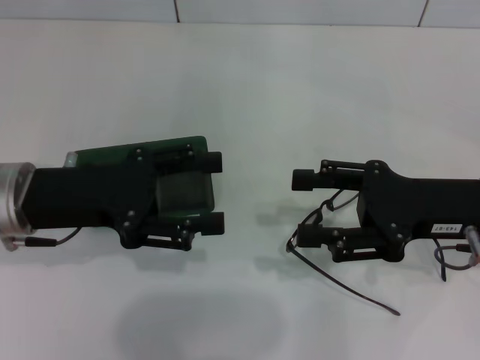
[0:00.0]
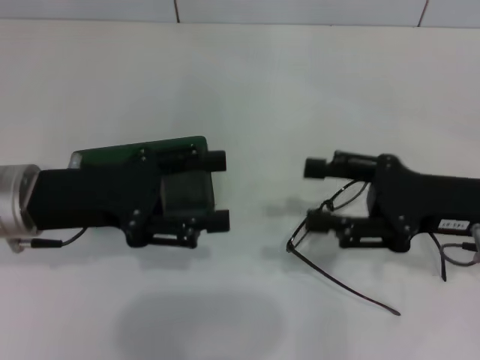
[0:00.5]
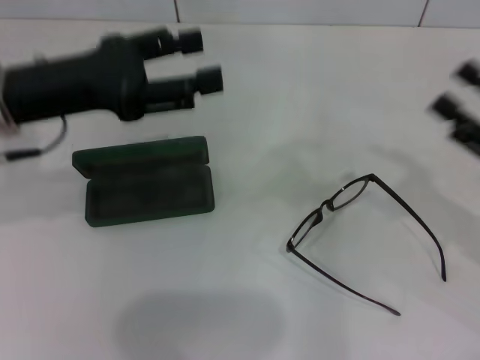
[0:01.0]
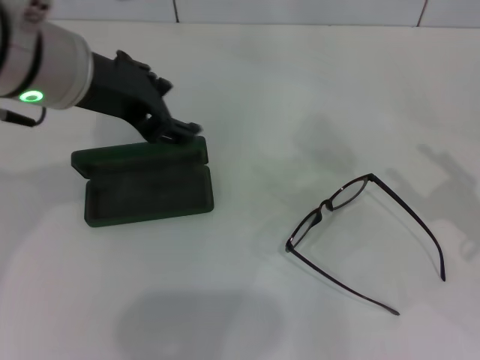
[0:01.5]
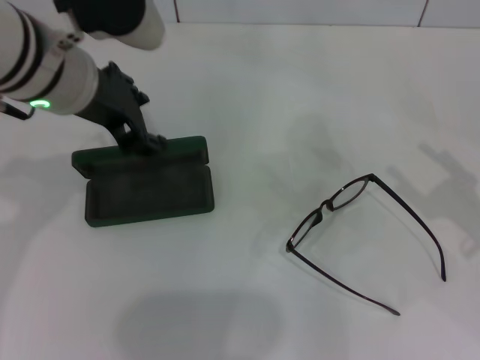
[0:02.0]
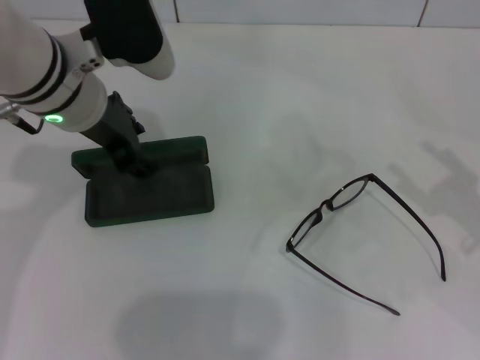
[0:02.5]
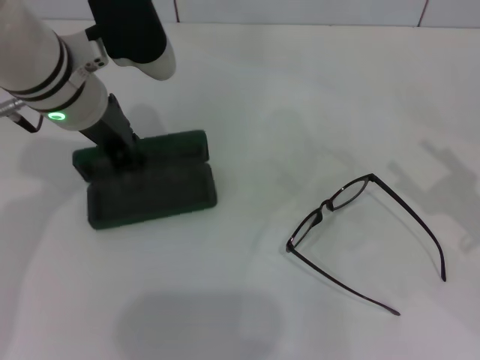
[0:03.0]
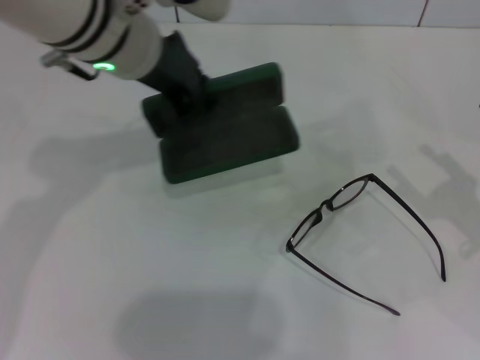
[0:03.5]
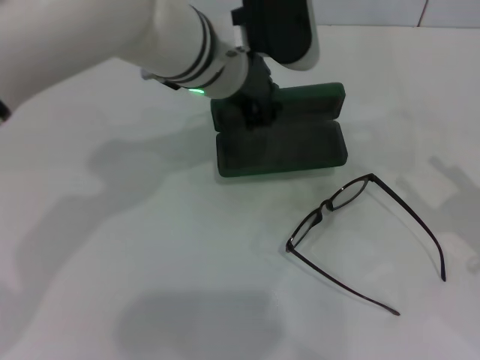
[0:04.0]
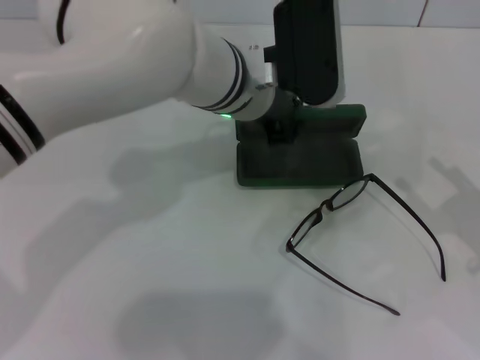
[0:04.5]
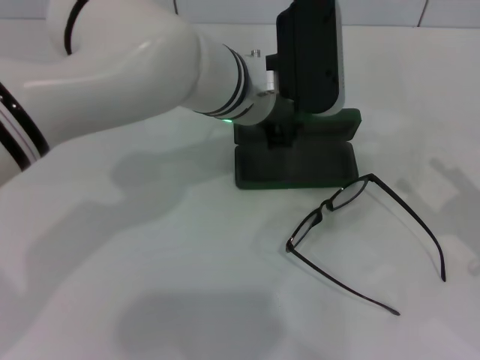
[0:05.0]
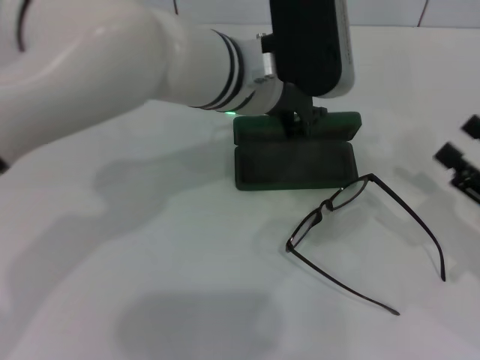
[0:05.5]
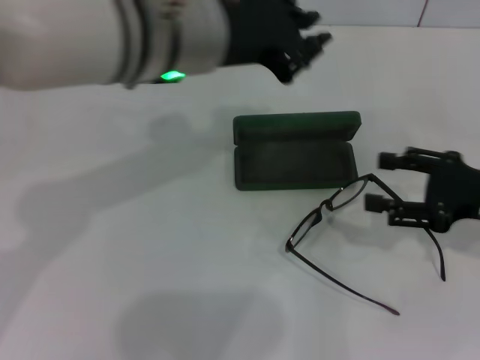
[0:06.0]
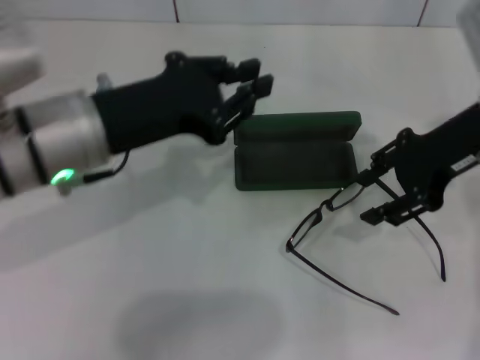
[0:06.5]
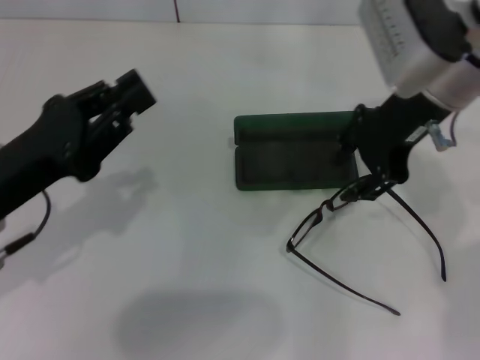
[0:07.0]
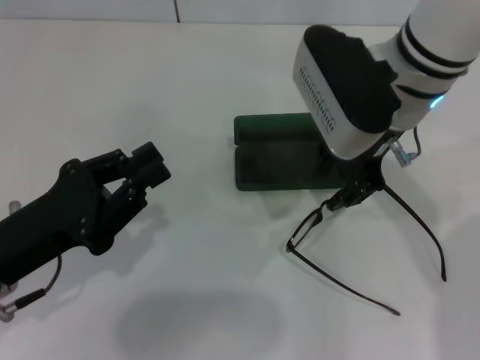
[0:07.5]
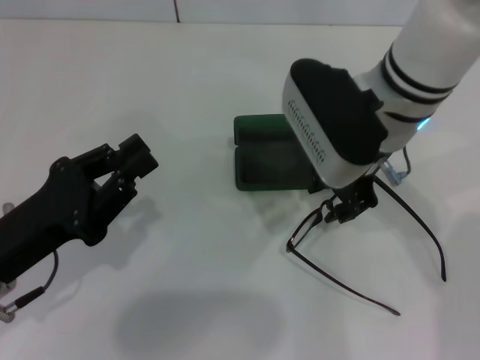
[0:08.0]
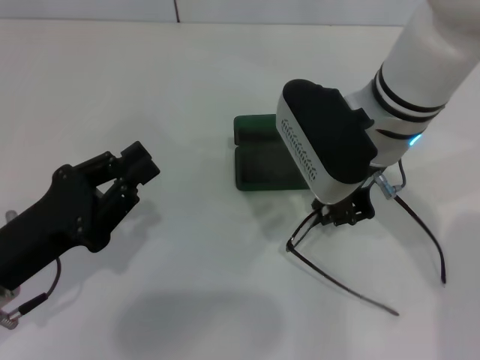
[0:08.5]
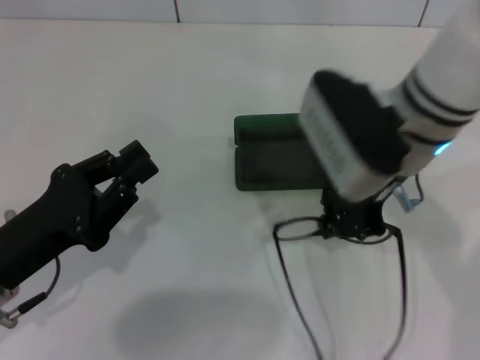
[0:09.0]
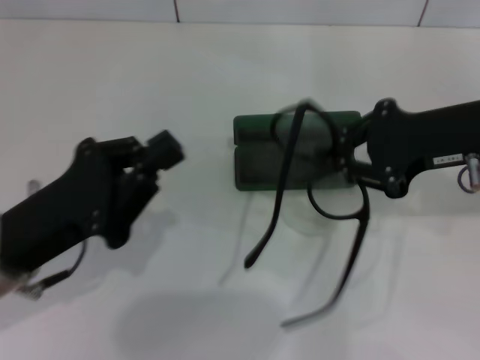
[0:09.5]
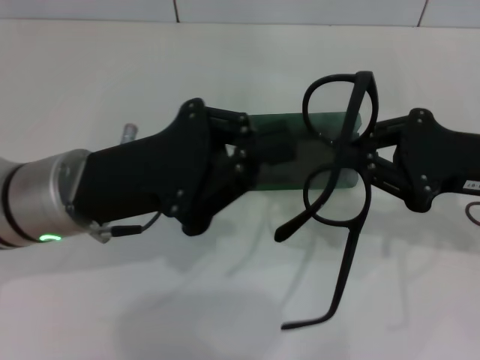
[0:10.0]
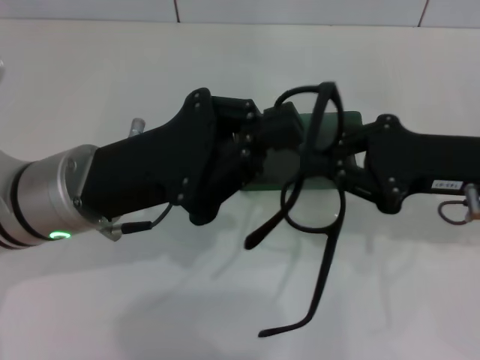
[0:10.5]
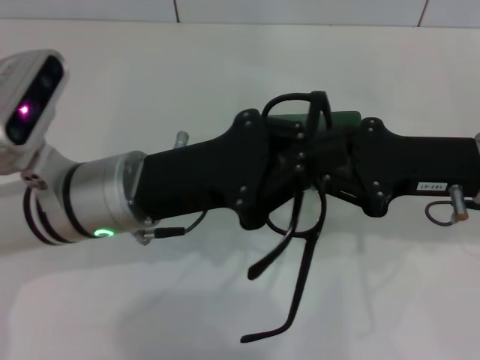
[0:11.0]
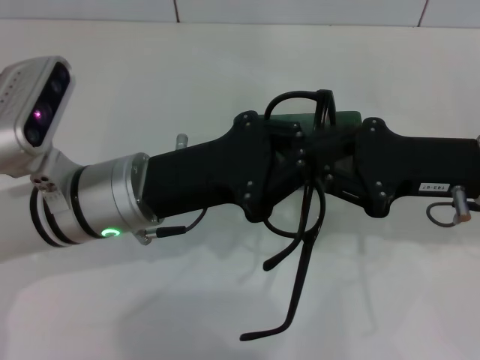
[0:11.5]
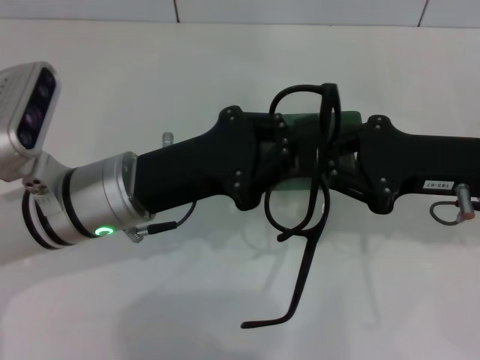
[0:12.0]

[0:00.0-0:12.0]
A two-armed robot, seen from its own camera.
Step, 0:00.0 to 0:02.5: Grab the glasses case with your left hand.
Step, 0:03.0 to 0:05.0: Place the glasses case in the center of the table with your left hand.
Step, 0:05.5 to 0:08.5: Grab the eyeglass frame with your right hand.
0:00.0 to 0:02.0: The left gripper travels upward, to the right and forward by roughly 15 cm. The right gripper is displaced to the right by some 10 cm.
0:02.0 to 0:04.0: The left gripper heads to the right, covering approximately 10 cm, and closes.
0:04.0 to 0:06.0: The right gripper is displaced forward by approximately 5 cm, while the left gripper moves backward, about 5 cm.
0:06.0 to 0:08.0: The right gripper heads to the left and upward, covering some 20 cm, and closes up; the left gripper heads to the left, downward and backward, covering approximately 25 cm.
0:08.0 to 0:10.0: The right gripper goes about 15 cm to the right, and closes its fingers, while the left gripper is displaced to the right, forward and upward by approximately 10 cm.

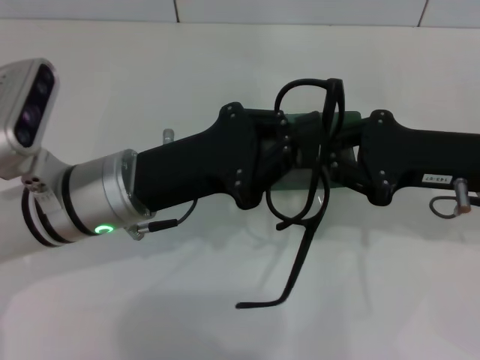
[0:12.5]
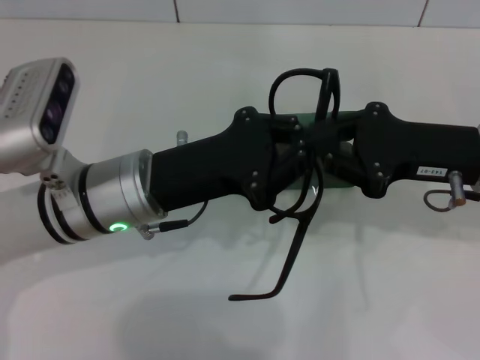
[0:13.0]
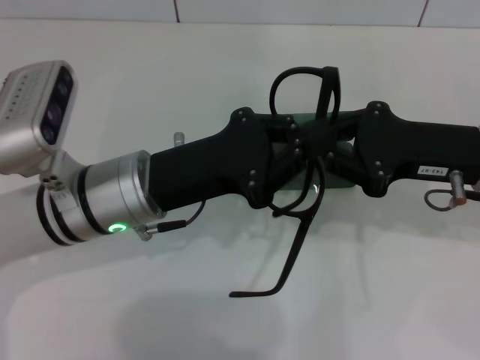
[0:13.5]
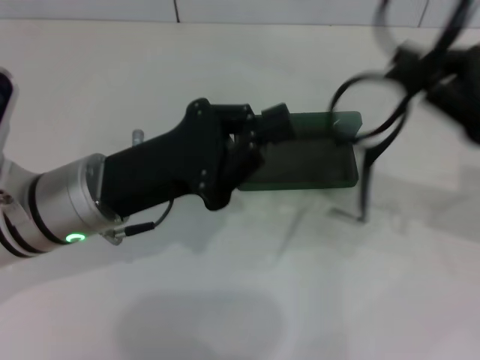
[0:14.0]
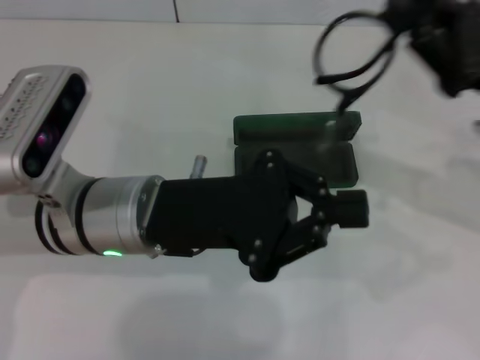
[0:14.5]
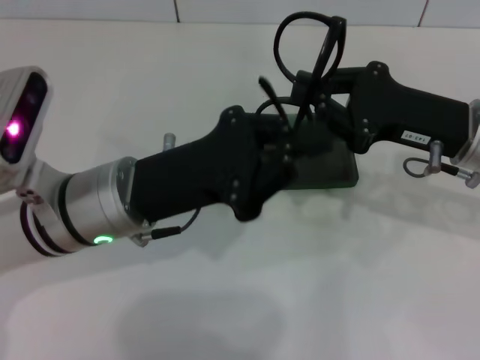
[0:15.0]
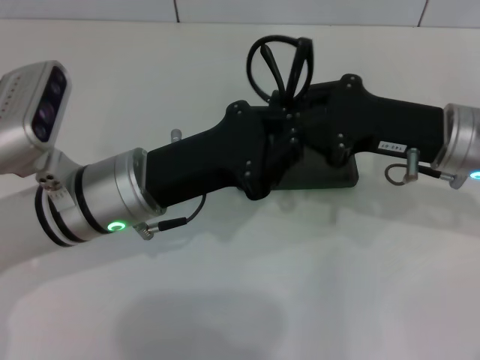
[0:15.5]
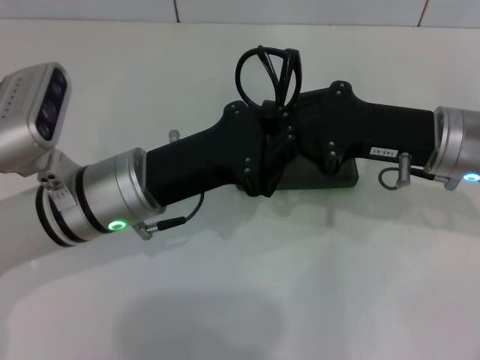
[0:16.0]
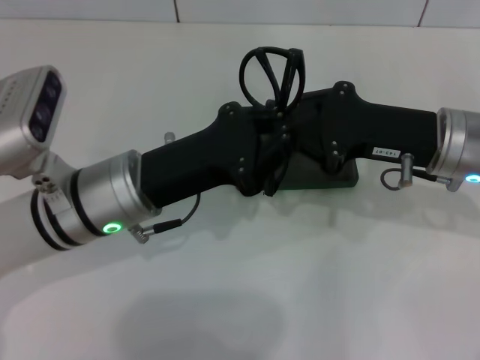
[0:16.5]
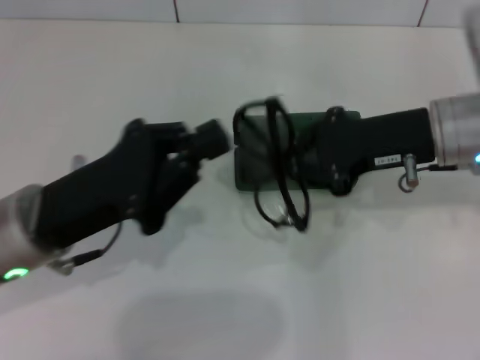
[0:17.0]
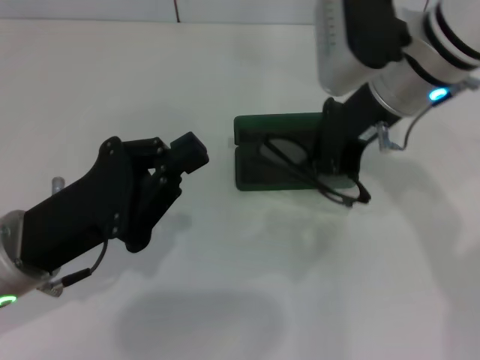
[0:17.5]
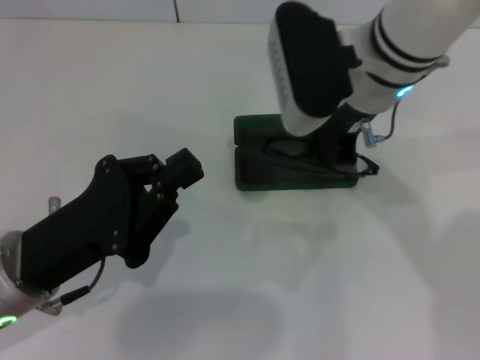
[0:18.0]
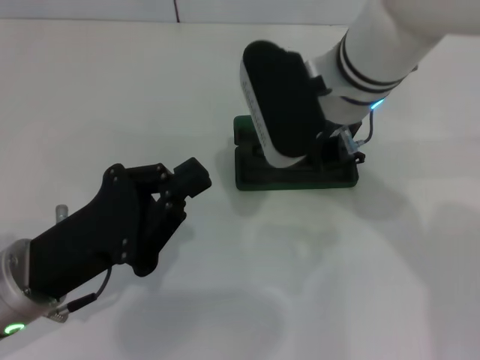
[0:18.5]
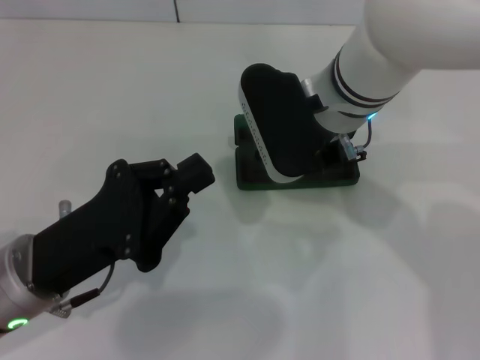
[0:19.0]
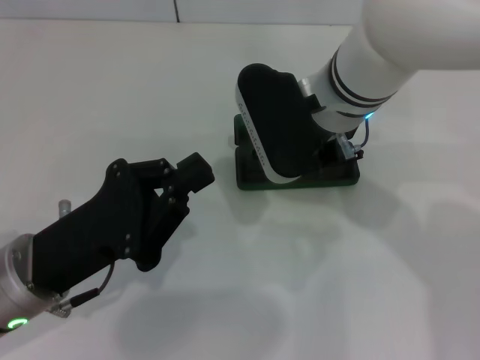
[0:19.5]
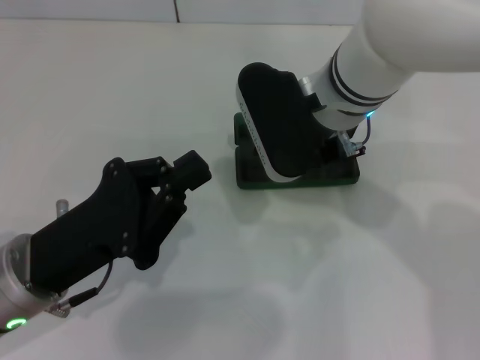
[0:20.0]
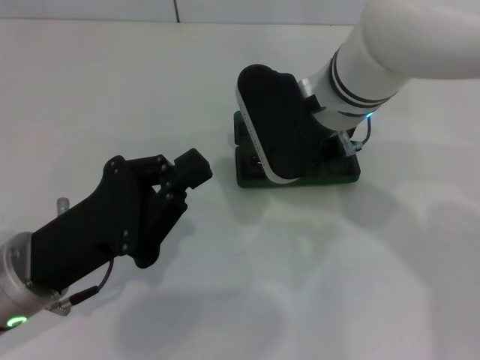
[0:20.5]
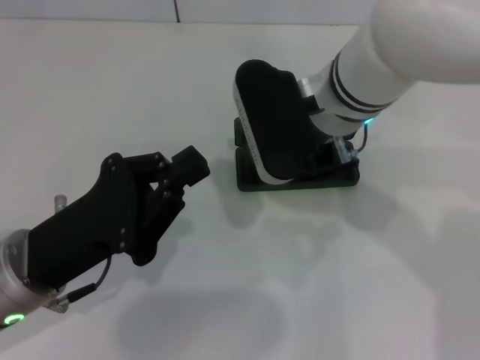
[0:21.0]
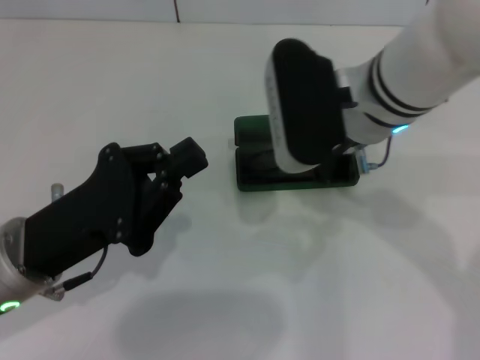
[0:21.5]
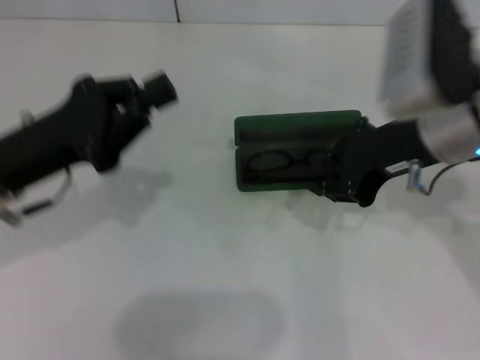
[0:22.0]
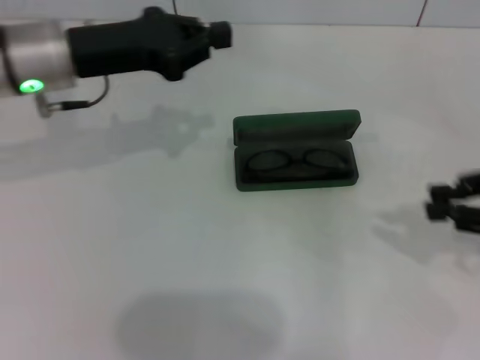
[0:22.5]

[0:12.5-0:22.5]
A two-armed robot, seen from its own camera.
Step, 0:12.5 to 0:16.5: Fold the frame with your left hand.
Step, 0:17.0 to 0:20.5: Put the glasses into the case with your right hand.
0:14.5 to 0:16.5: The right gripper moves to the left, roughly 5 cm.
0:16.5 to 0:18.5: The right gripper heads to the left and upward, covering about 15 cm. The left gripper shifts some 10 cm backward and to the left.
0:18.5 to 0:20.5: The grippers make only small movements.
0:20.5 to 0:22.5: The right gripper heads to the right, covering some 25 cm; the left gripper is displaced forward and upward by some 20 cm.

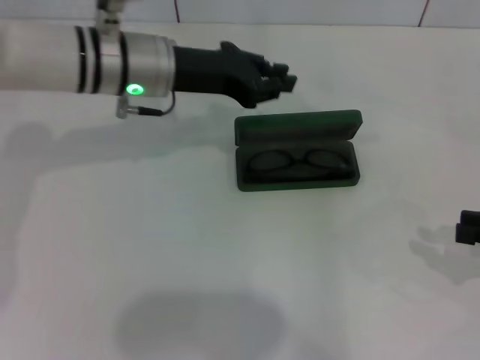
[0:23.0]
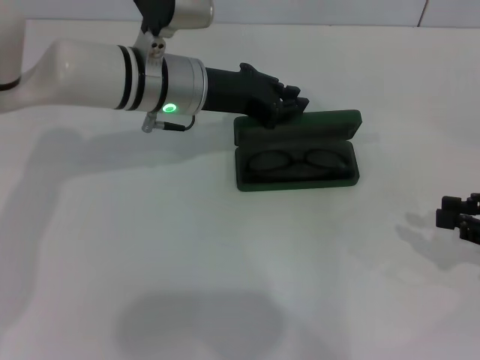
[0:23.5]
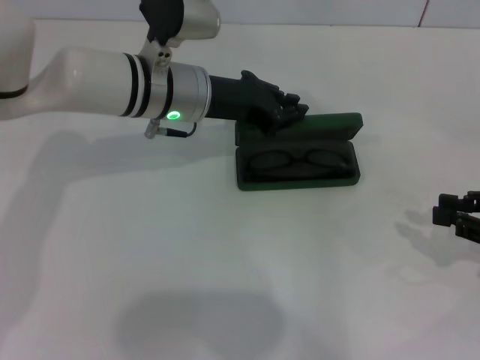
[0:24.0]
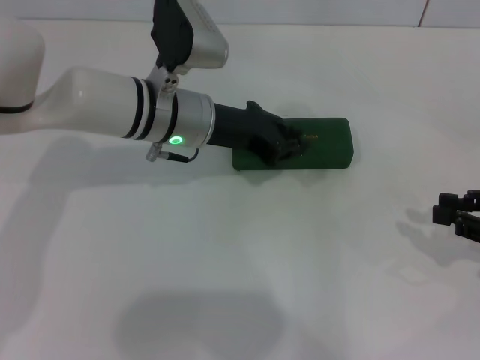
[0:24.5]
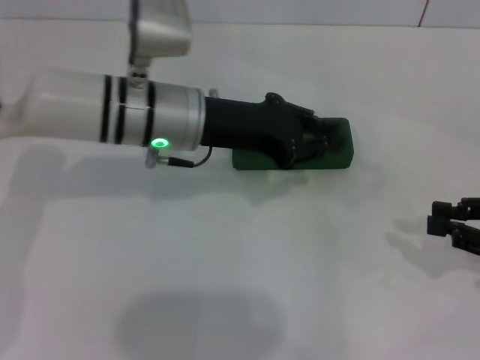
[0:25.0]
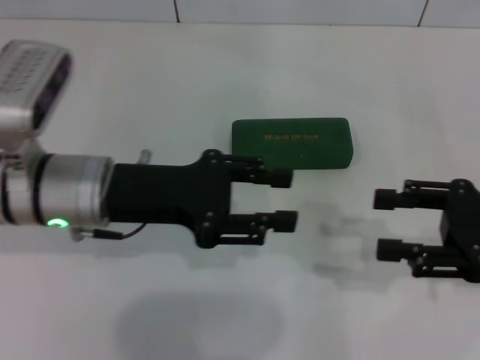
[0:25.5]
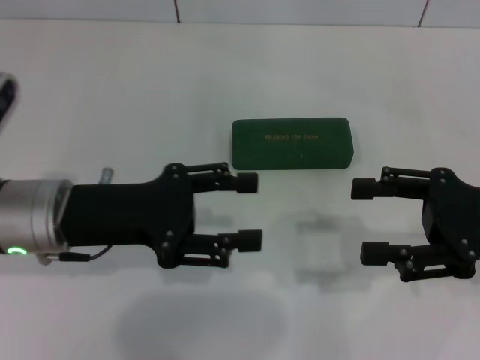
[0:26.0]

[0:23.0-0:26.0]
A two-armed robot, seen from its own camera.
0:23.0 to 0:24.5: The left gripper changes place by roughly 5 cm.
0:24.5 to 0:26.0: The left gripper goes about 15 cm backward and to the left, and opens its fingers, while the right gripper shifts approximately 10 cm to the left, and opens.
